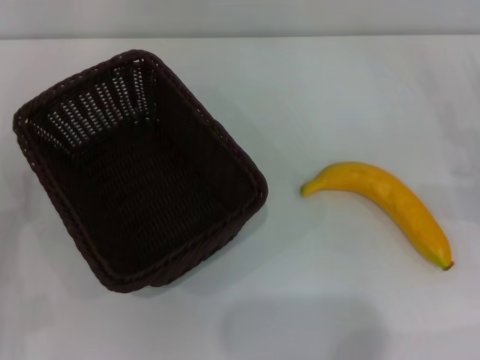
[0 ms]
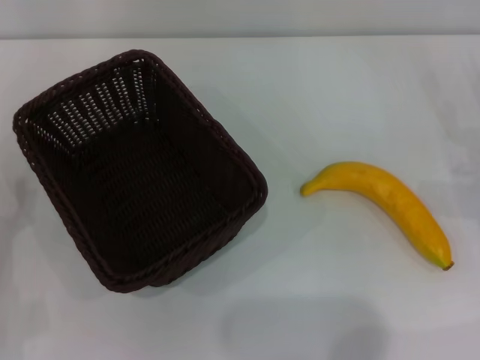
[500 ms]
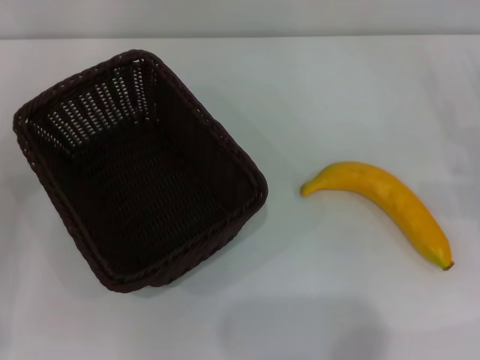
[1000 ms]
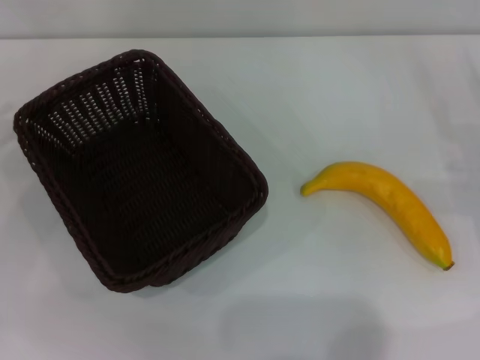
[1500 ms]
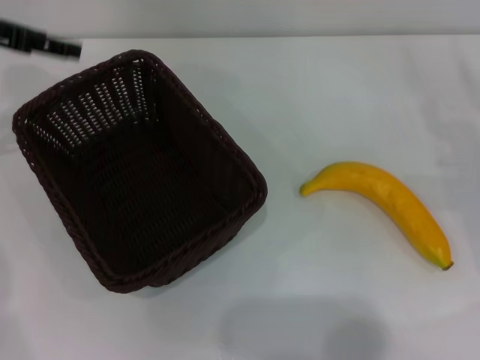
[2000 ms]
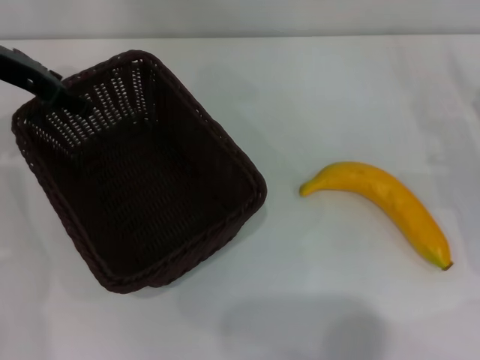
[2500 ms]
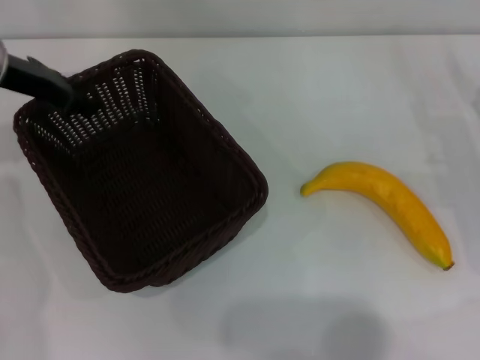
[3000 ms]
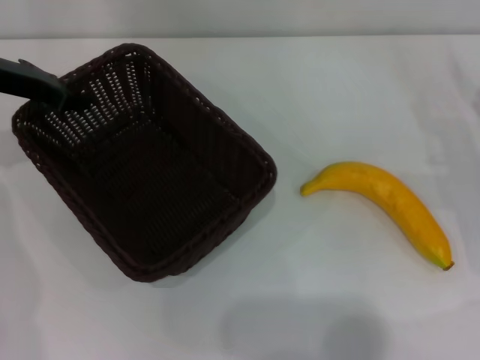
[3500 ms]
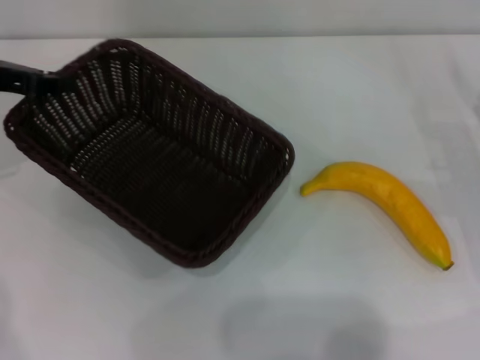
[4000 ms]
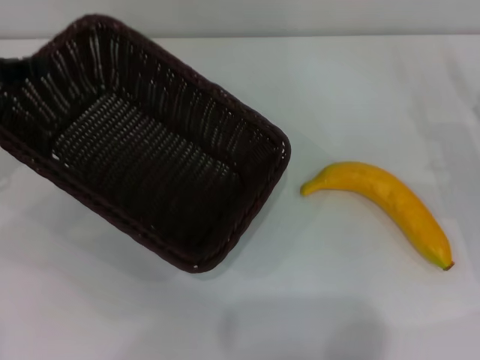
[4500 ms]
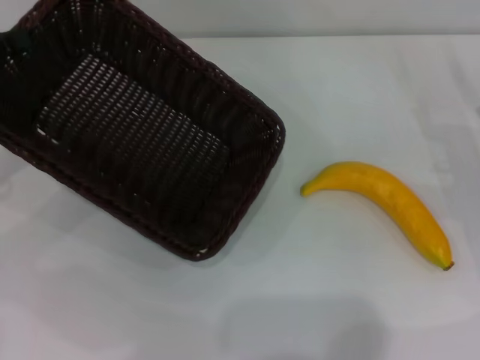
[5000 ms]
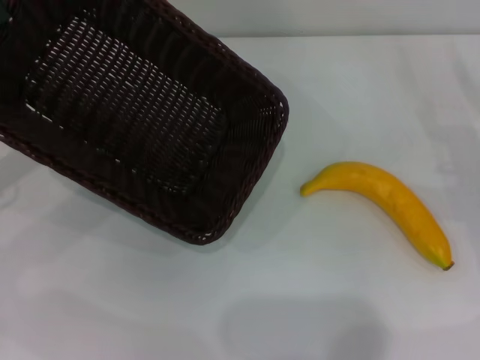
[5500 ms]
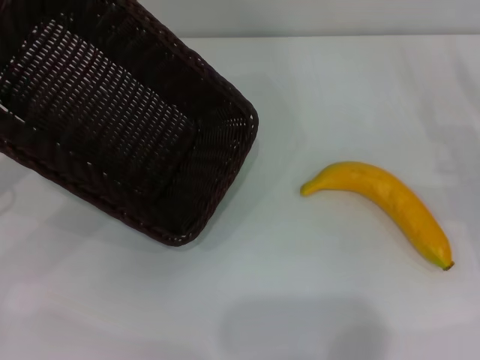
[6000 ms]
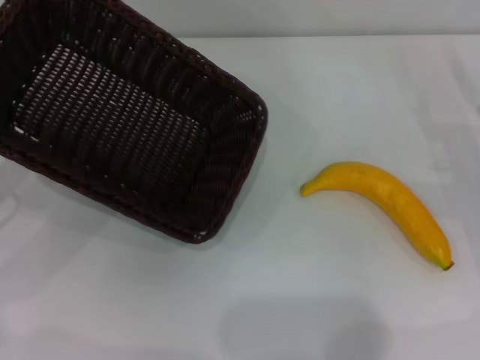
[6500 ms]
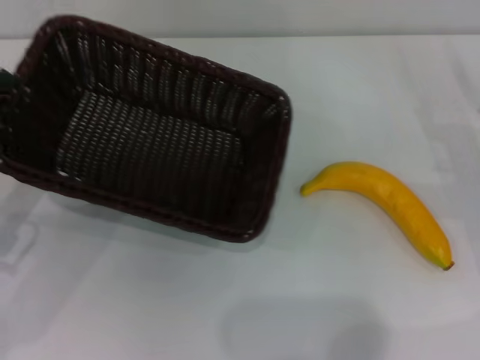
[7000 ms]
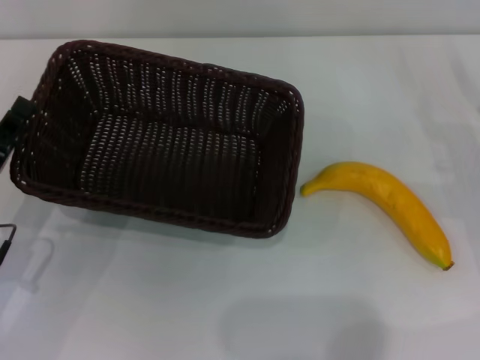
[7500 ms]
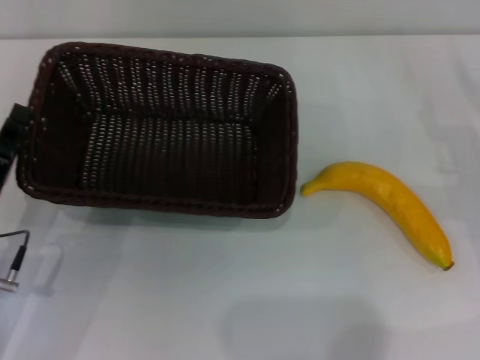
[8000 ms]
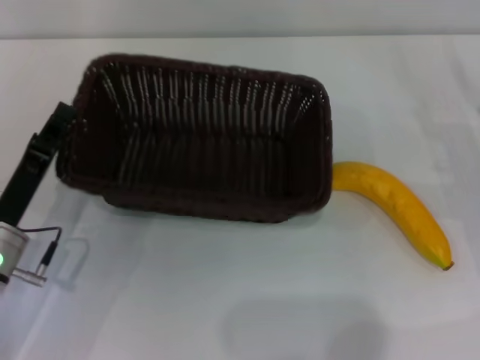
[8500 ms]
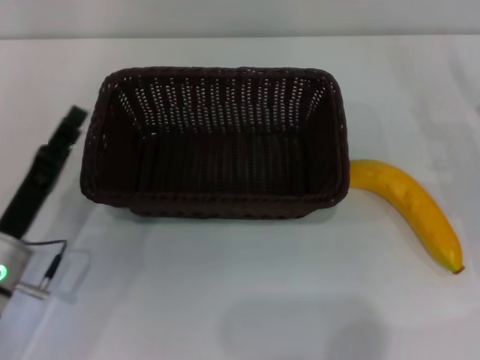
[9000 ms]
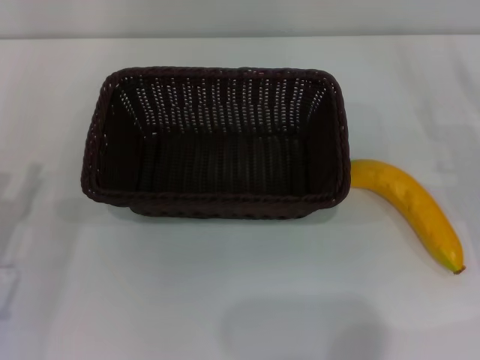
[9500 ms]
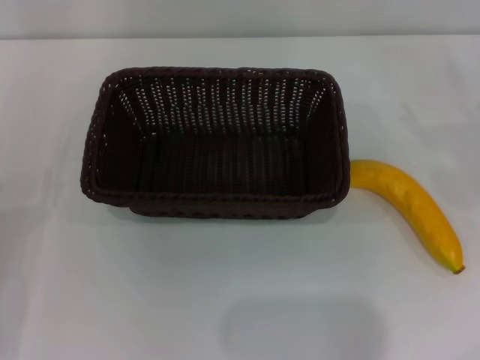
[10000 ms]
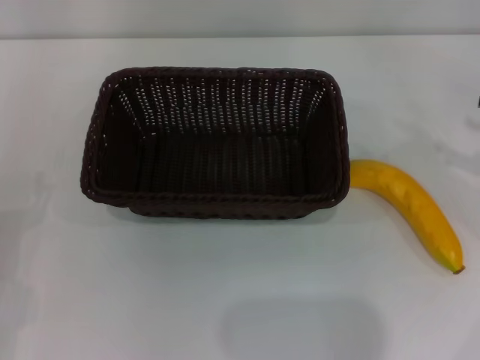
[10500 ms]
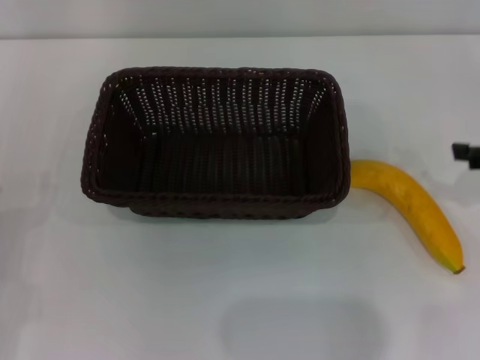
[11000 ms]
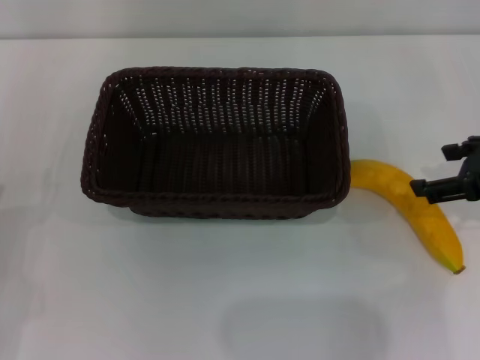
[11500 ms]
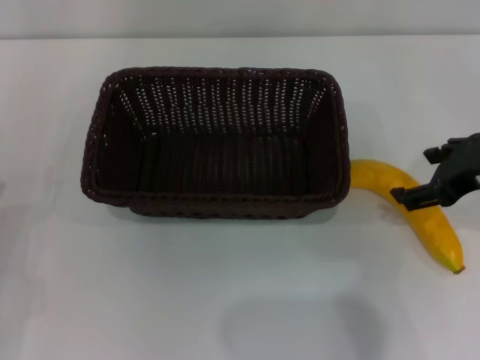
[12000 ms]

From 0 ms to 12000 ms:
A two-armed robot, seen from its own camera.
Step, from 0 ms to 4500 ms: Pick up the dark basket with the left gripper.
Step, from 5000 ms to 9000 ms: Place the dark basket in the center of view with the left gripper.
From 0 ms to 2000 ms: The left gripper travels forward and upward by about 30 cm.
From 2000 ms to 4000 ms: The left gripper heads downward, covering some 5 cm, and closes up.
From 4000 ms to 6000 ms: The left gripper goes approximately 10 cm backward.
From 6000 ms to 8000 ms: The left gripper travels downward, to the right and backward by some 15 cm.
From 8000 ms to 10000 ms: The left gripper goes some 5 cm to the left, and opens. The right gripper heads to the right, covering about 5 cm.
From 10000 ms to 12000 ms: The right gripper is displaced to the left and upward by approximately 15 cm.

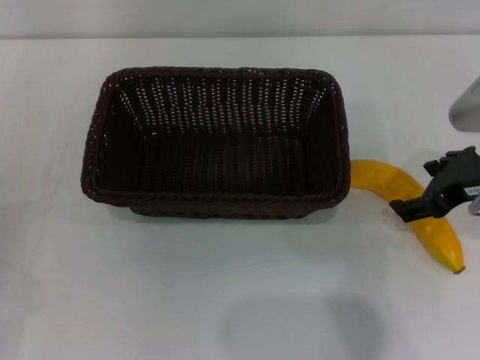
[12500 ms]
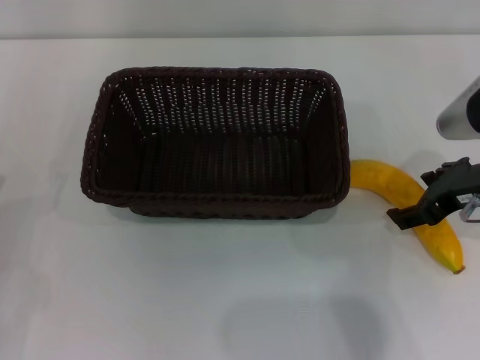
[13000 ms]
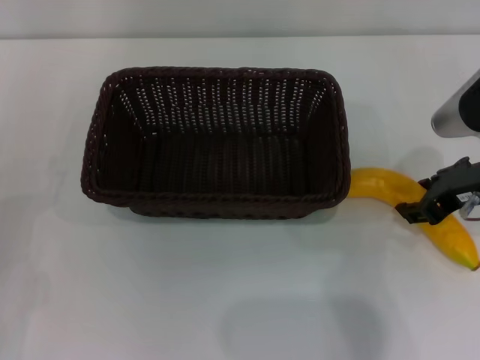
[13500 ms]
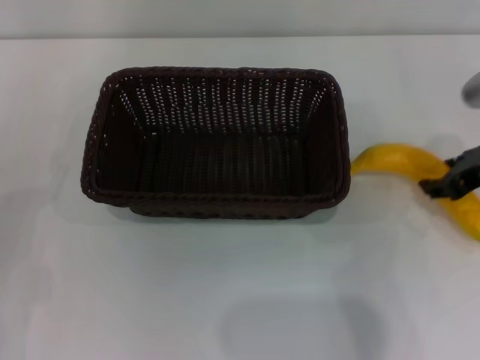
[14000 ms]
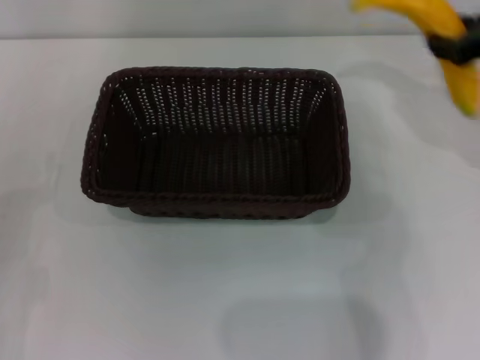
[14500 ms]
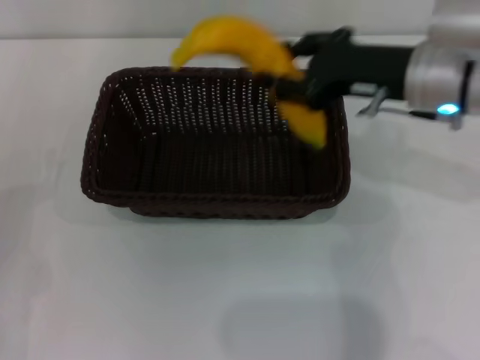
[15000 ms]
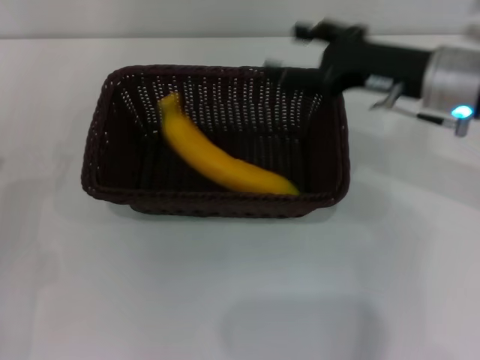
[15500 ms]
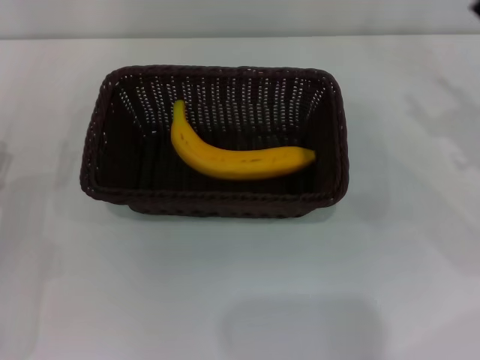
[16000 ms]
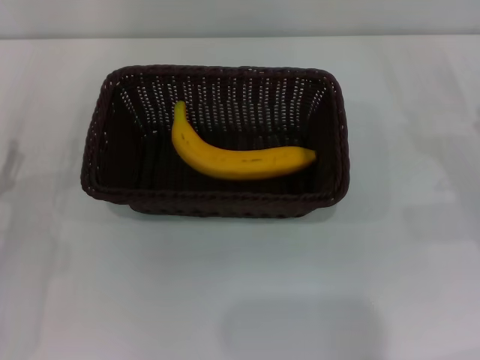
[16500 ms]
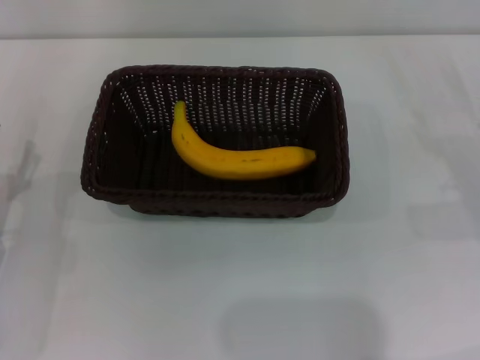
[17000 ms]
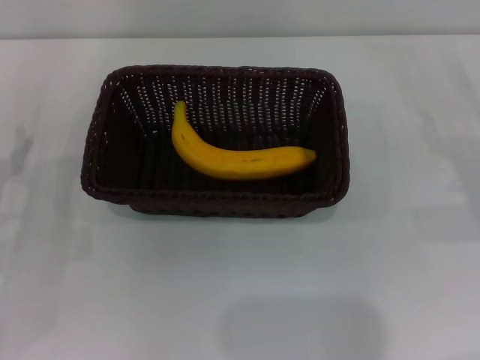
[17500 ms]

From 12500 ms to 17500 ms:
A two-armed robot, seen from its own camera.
Step, from 14500 ms to 15000 ms: Place the banana into the dark basket with the right gripper.
From 12500 ms to 15000 ms: The right gripper goes roughly 10 cm to the left and forward, and closes.
From 15000 ms to 17500 ms: The right gripper moves to the right and downward, roughly 25 cm, and opens its fingers.

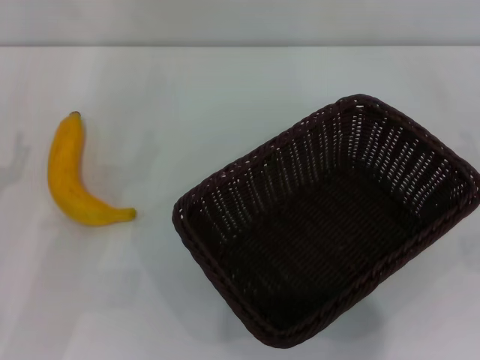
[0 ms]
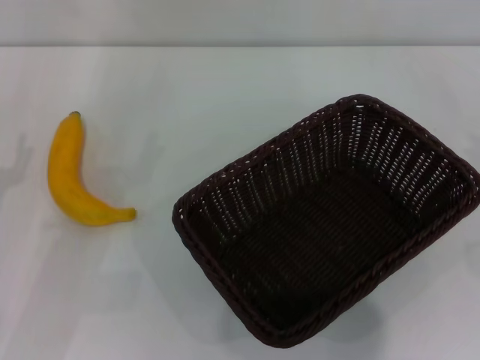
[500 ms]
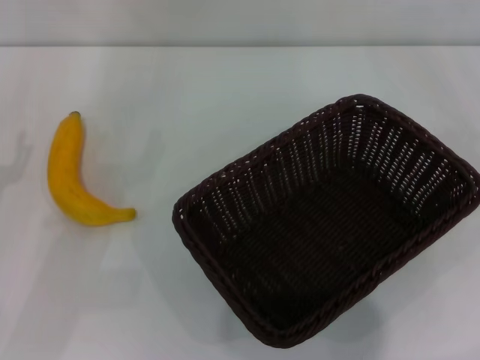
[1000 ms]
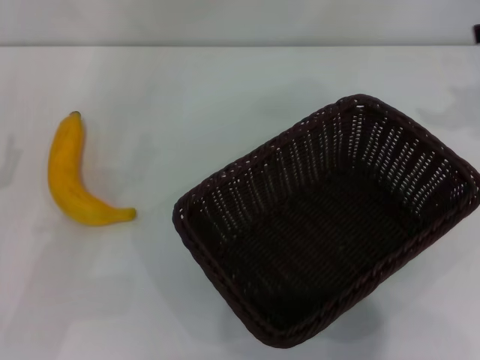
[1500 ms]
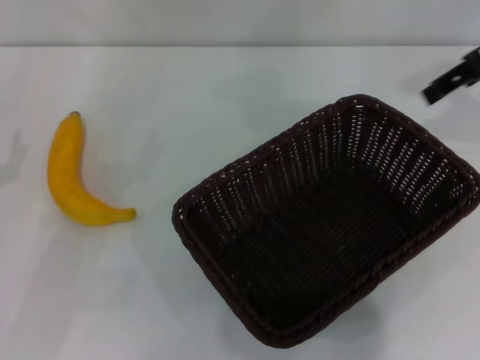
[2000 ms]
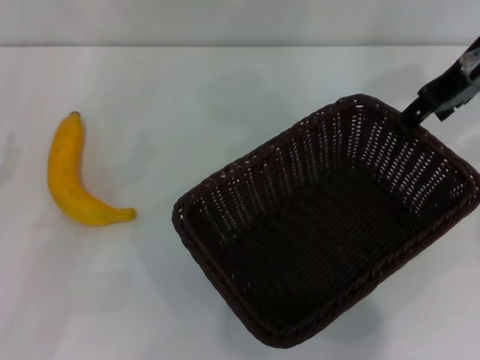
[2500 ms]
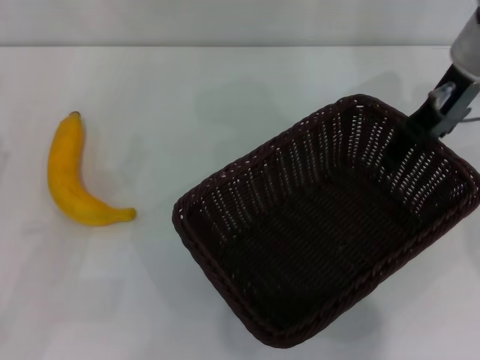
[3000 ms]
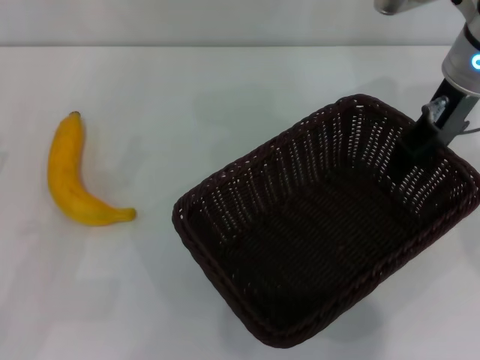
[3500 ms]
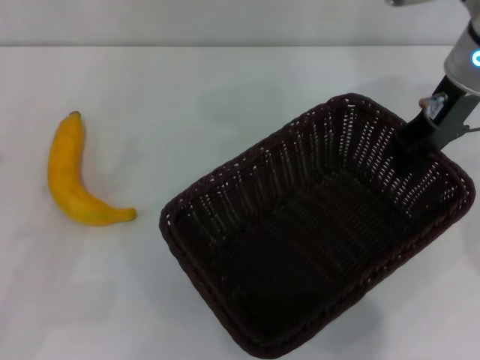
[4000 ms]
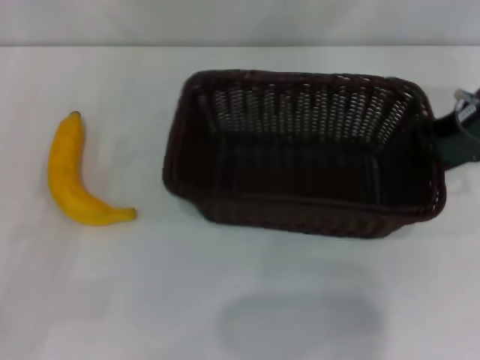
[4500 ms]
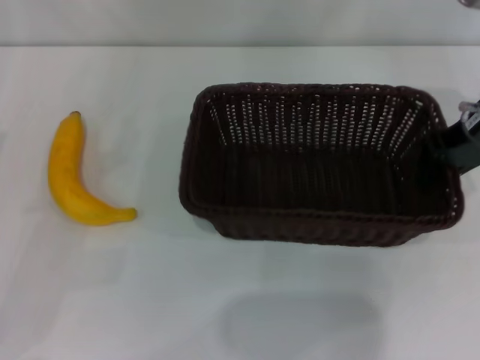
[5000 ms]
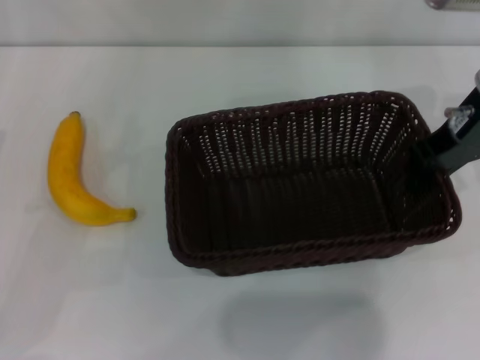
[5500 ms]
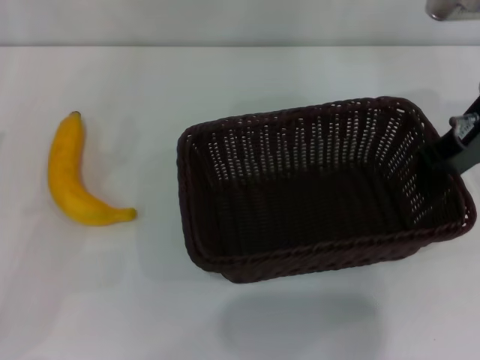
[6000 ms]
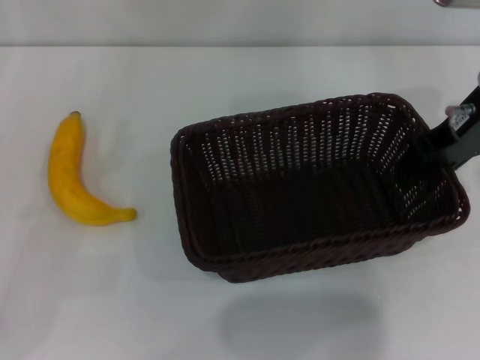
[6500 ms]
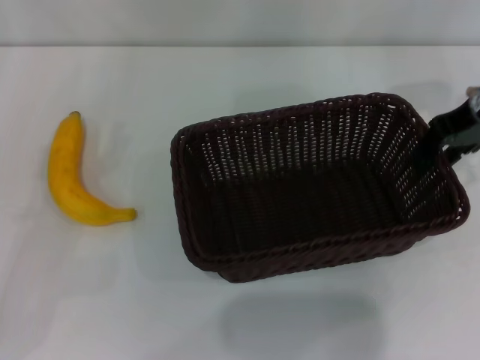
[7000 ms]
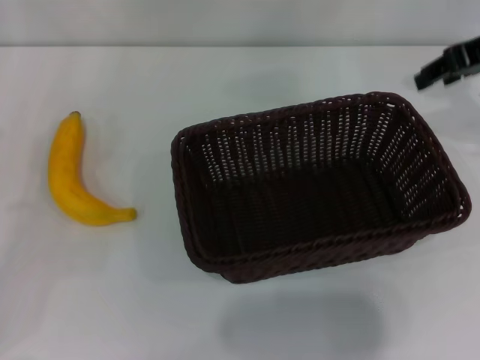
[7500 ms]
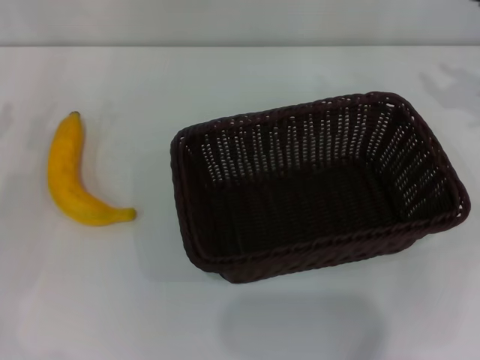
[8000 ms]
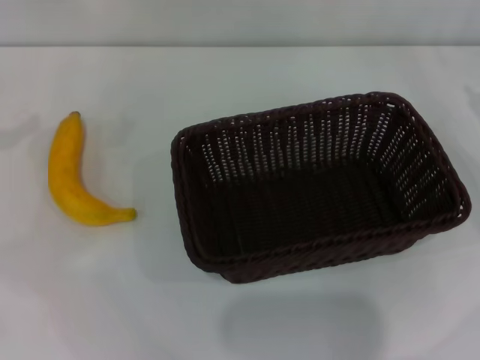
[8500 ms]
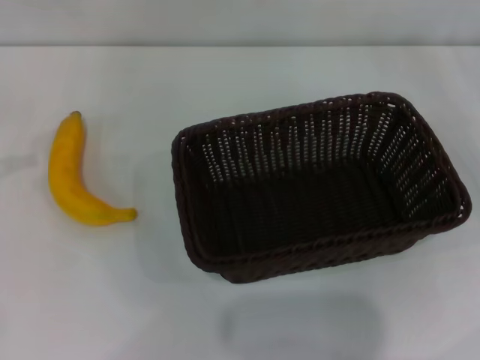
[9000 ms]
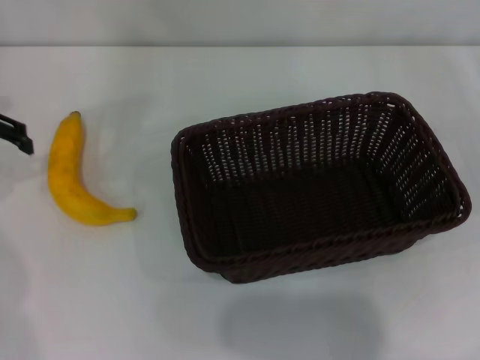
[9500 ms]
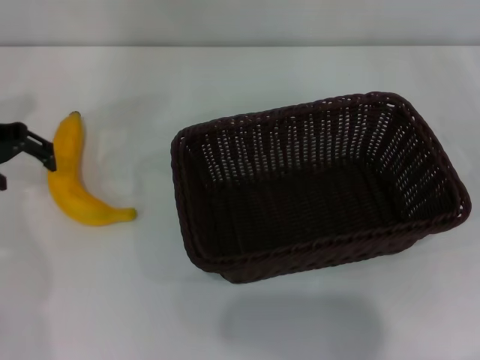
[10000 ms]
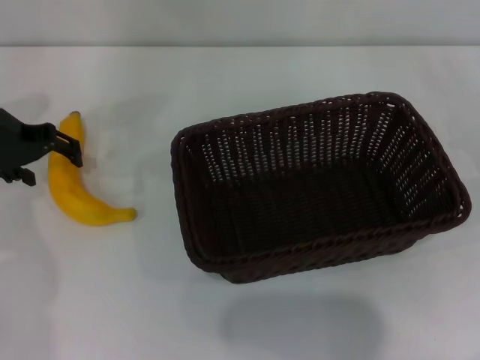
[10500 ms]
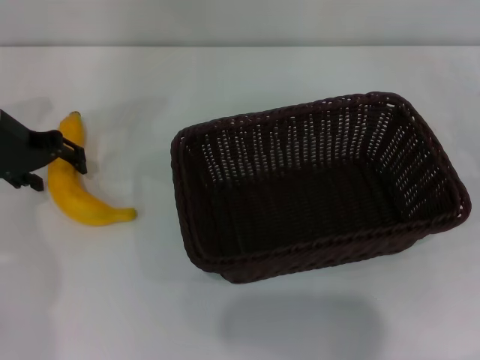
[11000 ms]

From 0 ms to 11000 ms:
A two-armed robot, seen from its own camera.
Step, from 0 ms to 4000 ms: Pick up the dark basket with the right gripper.
Step, from 4500 ms to 7000 ms: Place the dark basket in the center of view with the right gripper.
From 0 ms to 2000 ms: The right gripper goes approximately 30 cm upward, to the left and forward.
From 2000 ms to 3500 ms: The right gripper is displaced to the left and downward by some 10 cm.
From 3500 ms to 5500 ms: The right gripper closes up.
From 5500 ms to 7500 ms: The right gripper ends up roughly 5 cm from where it was, and opens its fingers.
From 7500 ms to 9000 ms: The right gripper shifts some 20 cm downward, to the right and backward.
From 9000 ms to 11000 ms: The left gripper moves to the right, downward and forward, approximately 15 cm.
